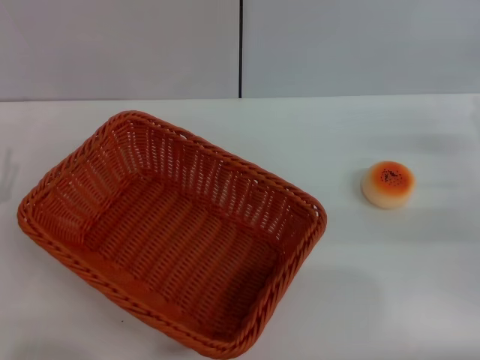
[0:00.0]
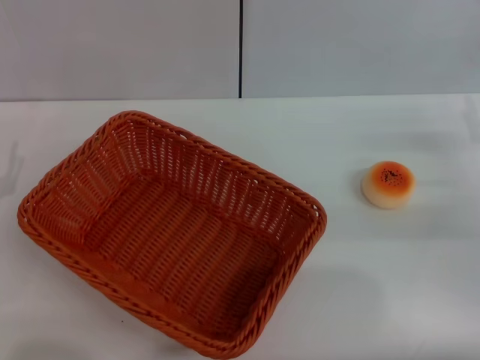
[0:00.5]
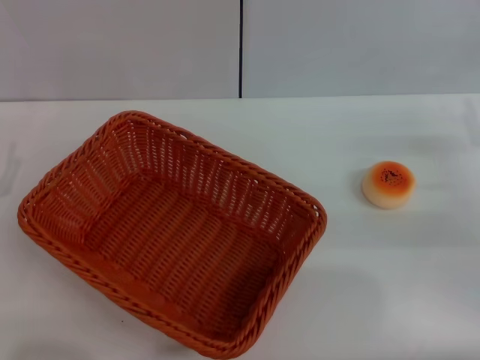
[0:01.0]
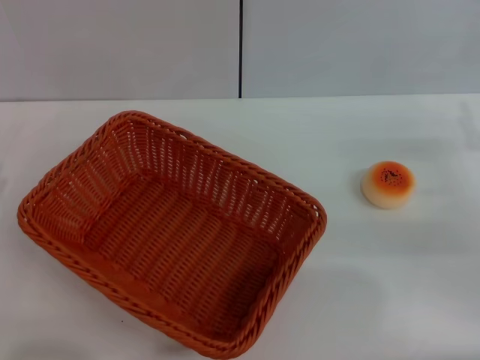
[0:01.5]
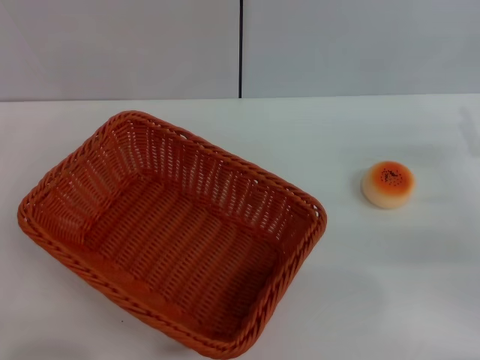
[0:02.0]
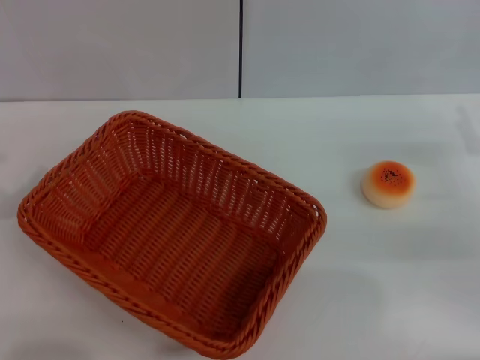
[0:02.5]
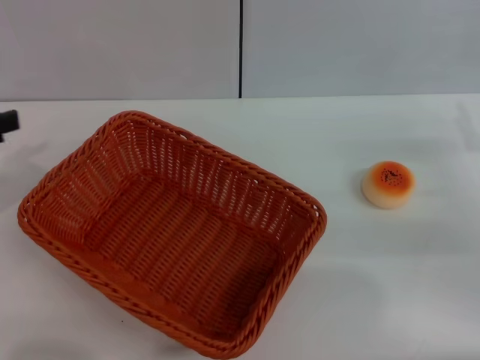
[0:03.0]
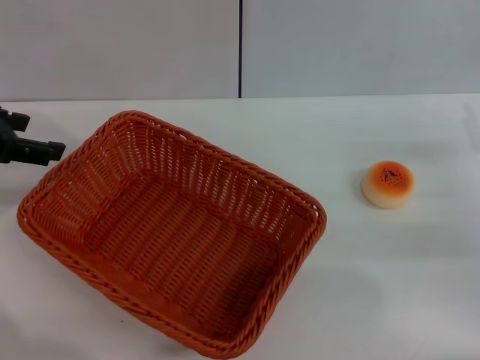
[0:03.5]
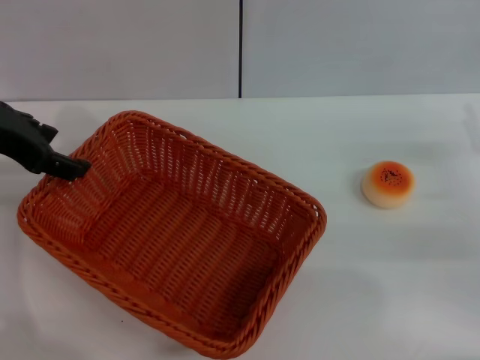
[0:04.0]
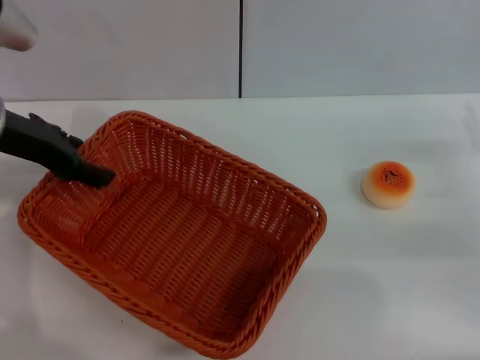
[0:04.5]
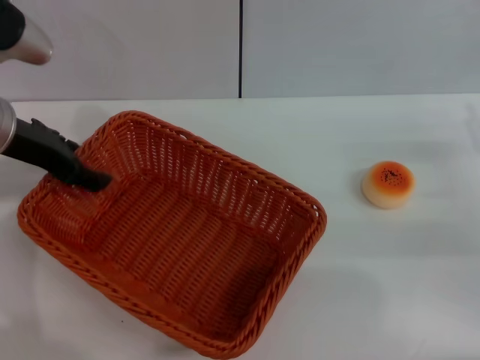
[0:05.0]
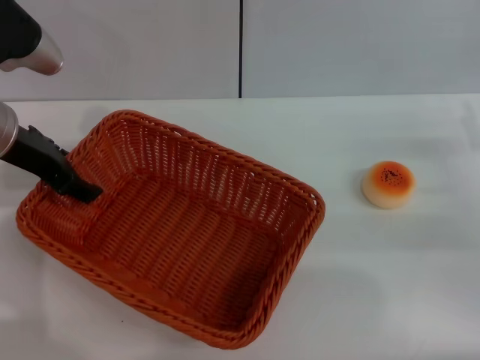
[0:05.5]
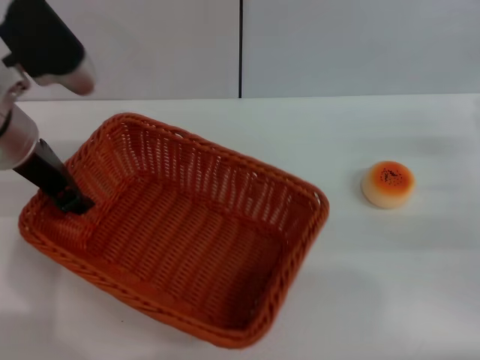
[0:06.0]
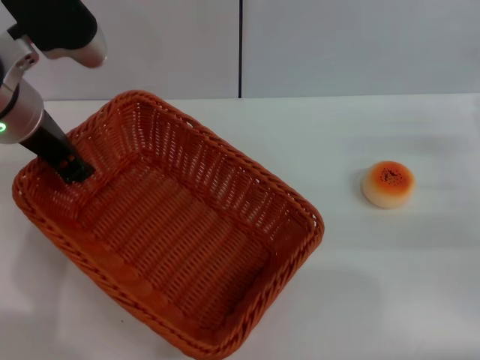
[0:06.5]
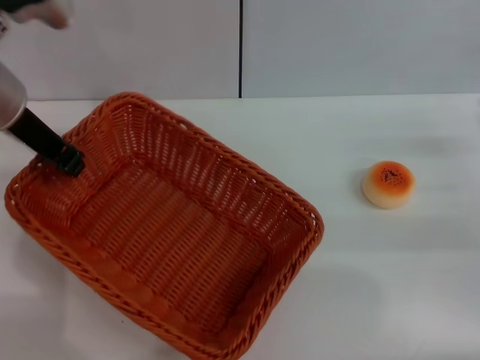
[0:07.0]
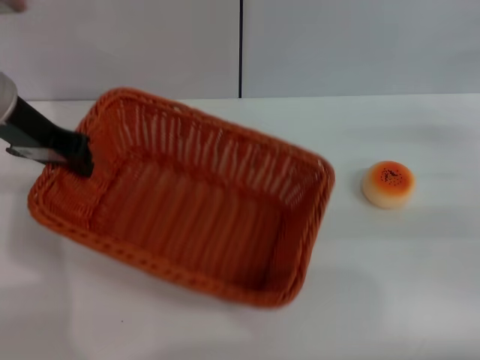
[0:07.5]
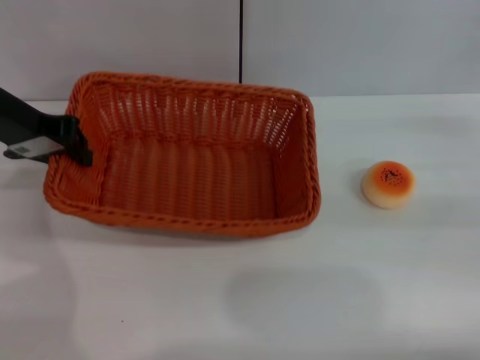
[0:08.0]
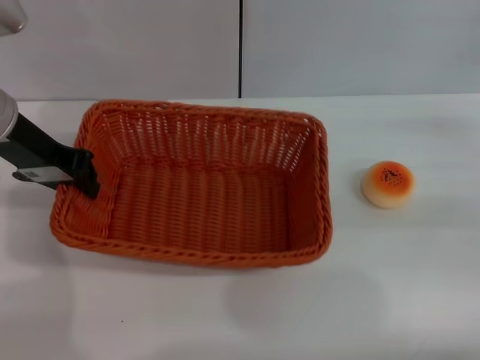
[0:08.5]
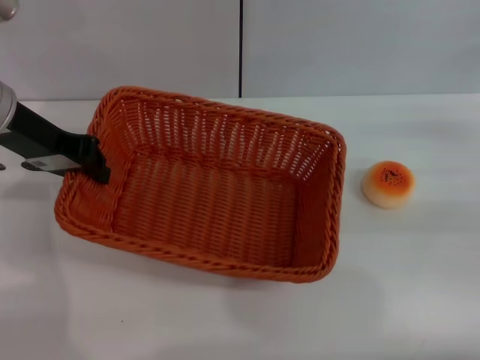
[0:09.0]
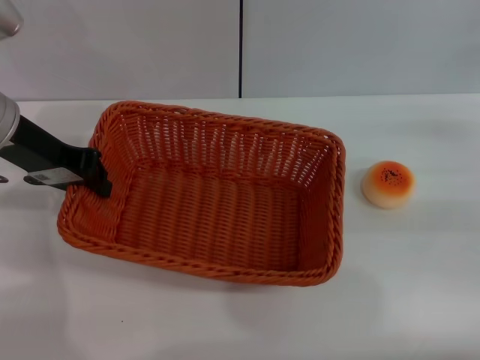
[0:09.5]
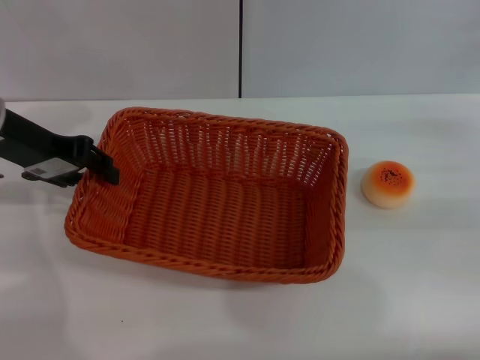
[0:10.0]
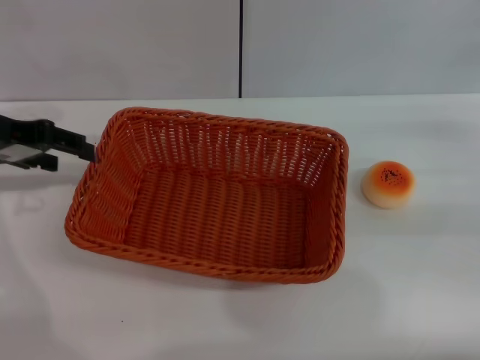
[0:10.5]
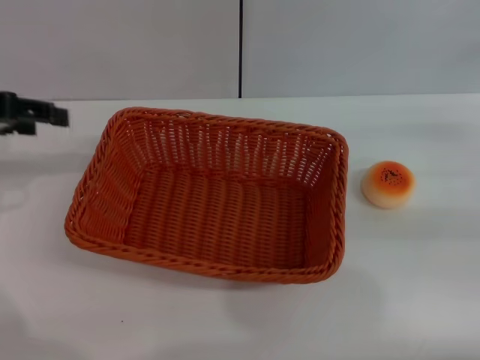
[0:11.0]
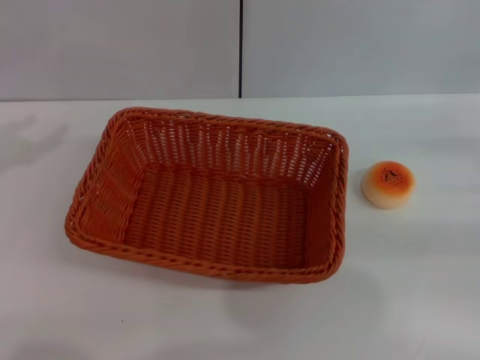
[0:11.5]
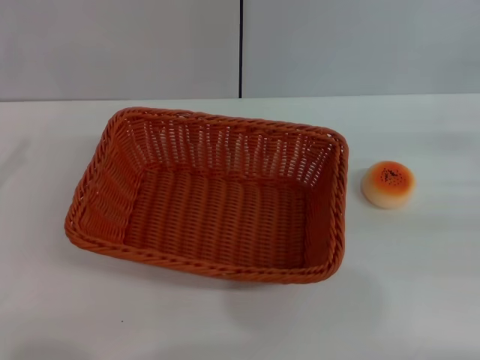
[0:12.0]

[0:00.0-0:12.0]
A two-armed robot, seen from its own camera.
Step, 0:00.0 to 0:10.5: Move the basket to the center of view with the left gripper.
0:02.0 to 0:04.0: The left gripper goes approximately 25 cm upward, forward and to the right.
0:04.0 to 0:06.0: The left gripper heads to the right, covering roughly 5 cm, and closes.
0:06.0 to 0:08.0: The left gripper shifts by about 5 cm, and closes; the right gripper moves some 5 cm.
0:10.0 to 0:12.0: The left gripper heads to the left and backward, covering about 20 cm, and opens.

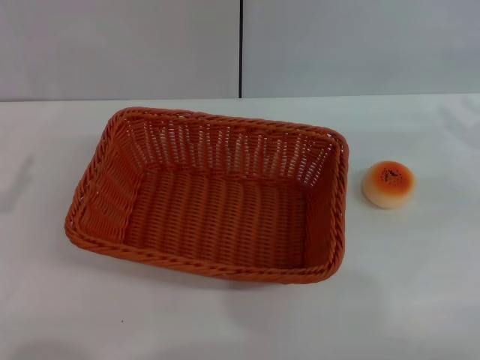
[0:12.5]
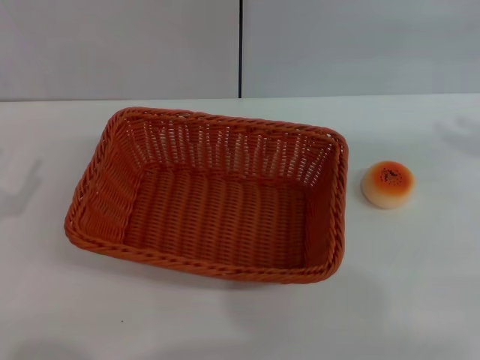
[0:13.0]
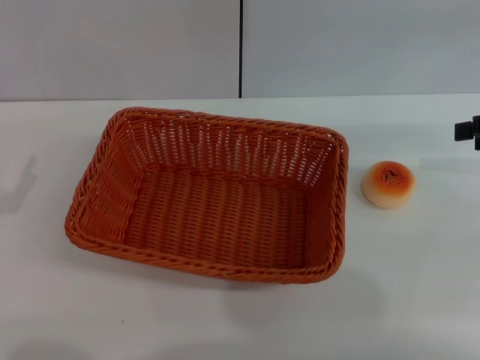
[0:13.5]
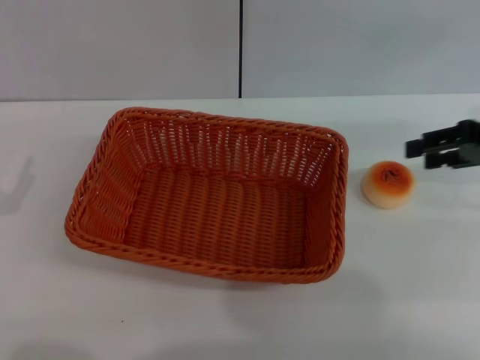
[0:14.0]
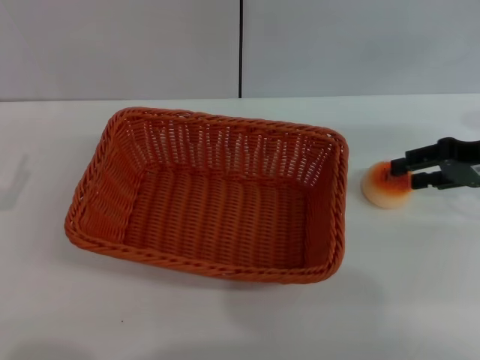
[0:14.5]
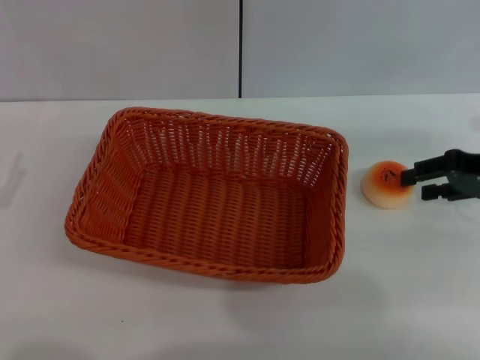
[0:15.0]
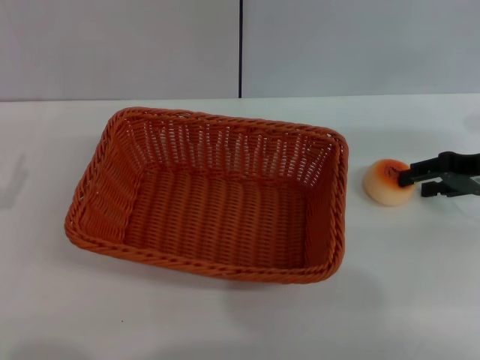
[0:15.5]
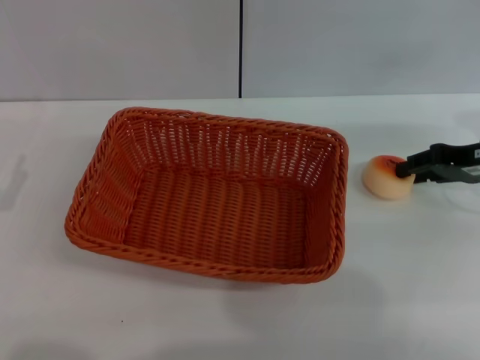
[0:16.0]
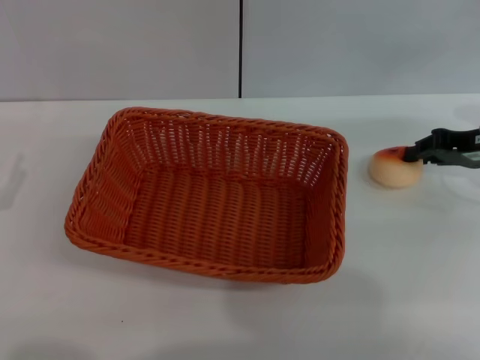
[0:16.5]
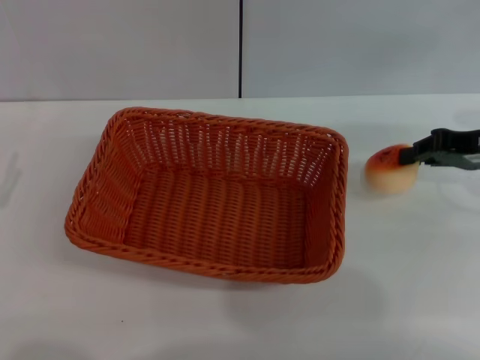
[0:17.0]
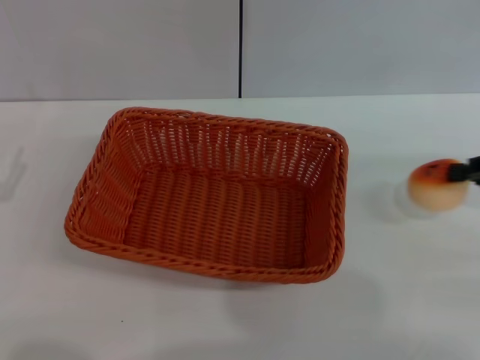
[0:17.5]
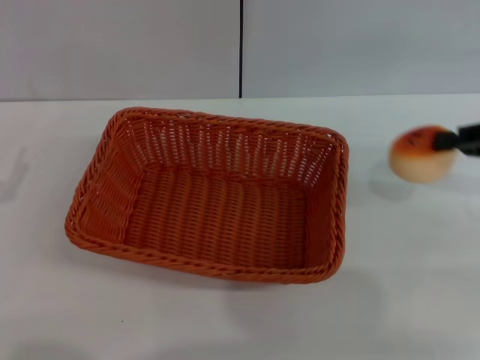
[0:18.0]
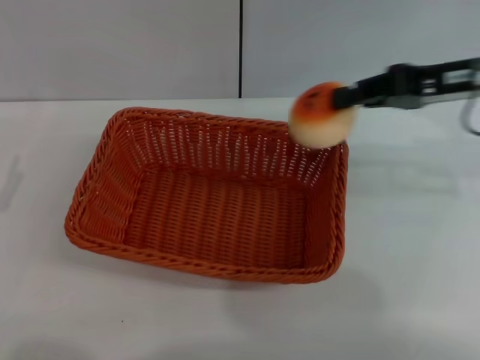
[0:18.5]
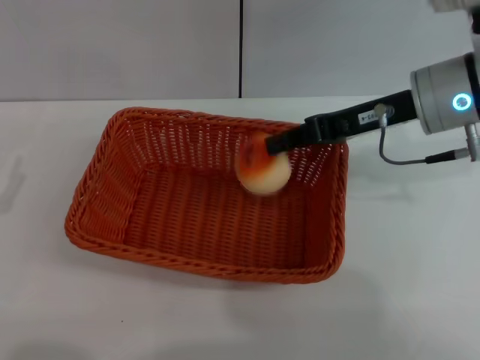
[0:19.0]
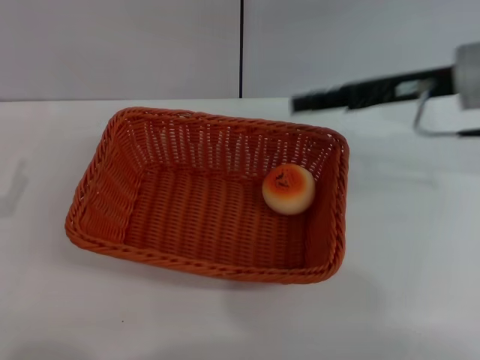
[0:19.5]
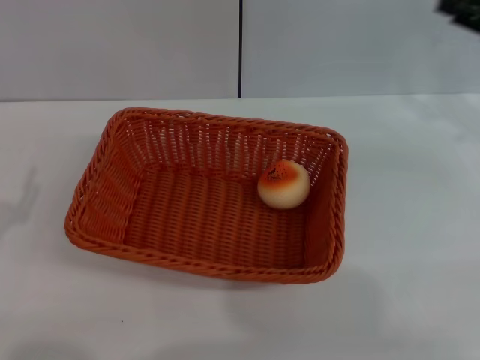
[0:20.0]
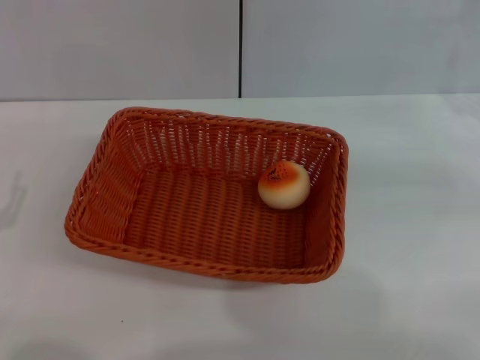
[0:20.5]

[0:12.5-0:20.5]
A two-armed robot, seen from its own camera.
Step, 0:12.5 to 0:17.0: Pick up the egg yolk pastry with the right gripper.
Step, 0:17.5 to 0:19.0: Place the egg yolk pastry into the basket with the right gripper.
0:12.5 to 0:14.5: The right gripper goes approximately 5 cm to the left.
0:14.5 to 0:16.5: The right gripper closes.
0:16.5 to 0:18.5: The right gripper goes some 10 cm upward and to the left.
0:18.5 to 0:20.5: The right gripper goes about 15 cm to the right and downward, and opens up.
